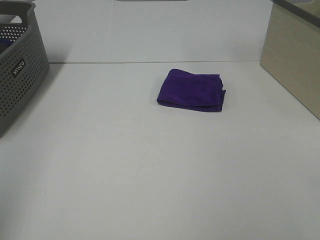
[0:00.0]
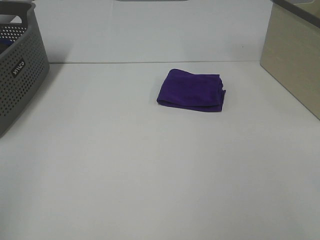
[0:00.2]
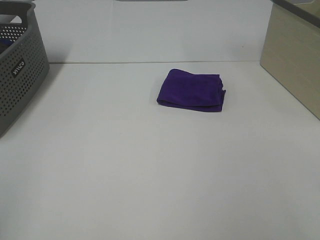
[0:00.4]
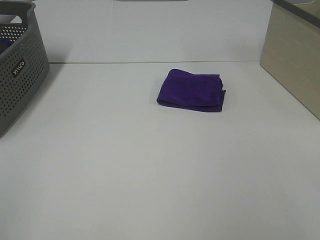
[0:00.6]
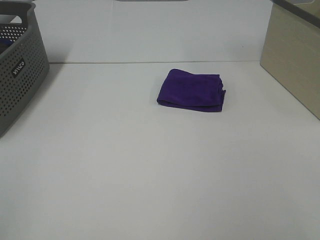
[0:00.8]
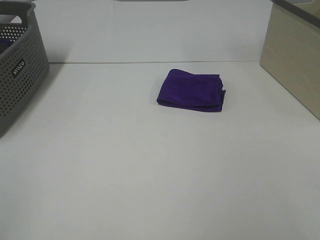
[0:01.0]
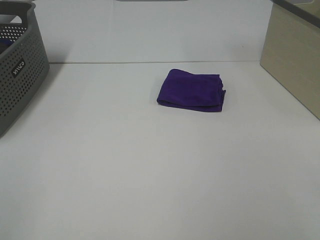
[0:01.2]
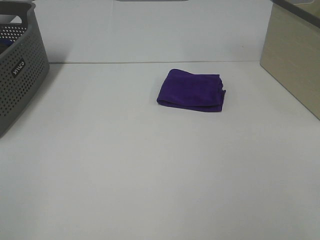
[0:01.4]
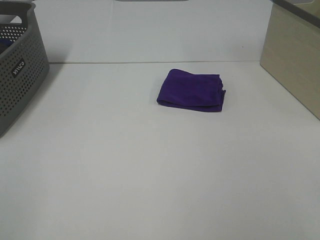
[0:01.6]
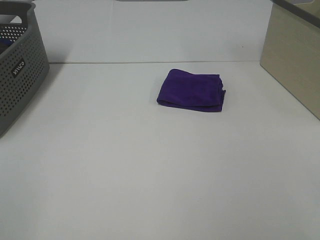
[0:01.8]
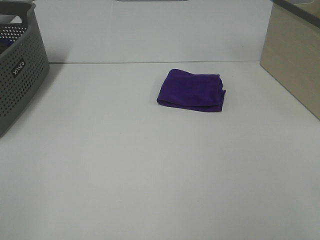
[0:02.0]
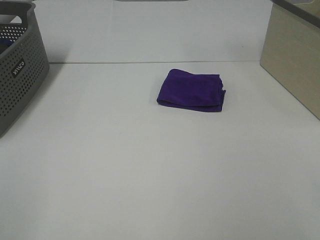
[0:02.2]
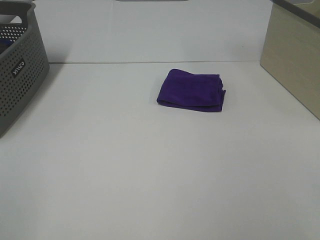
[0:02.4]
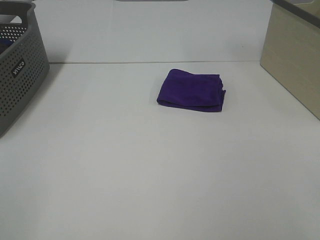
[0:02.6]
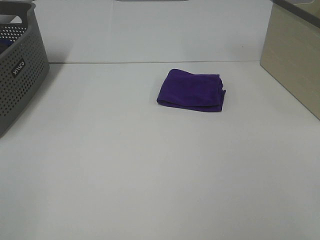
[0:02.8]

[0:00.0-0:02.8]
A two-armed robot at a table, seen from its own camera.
Task of the whole recording: Fold towels.
1.4 to 2.8 s: Neither gripper changes place.

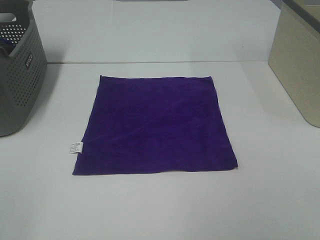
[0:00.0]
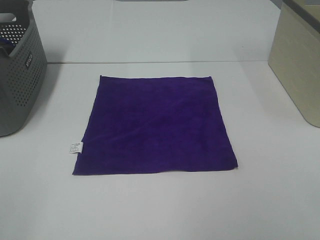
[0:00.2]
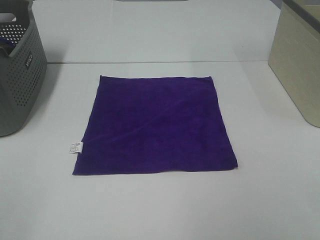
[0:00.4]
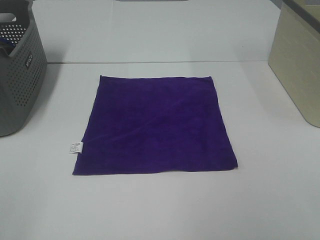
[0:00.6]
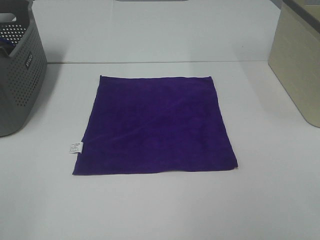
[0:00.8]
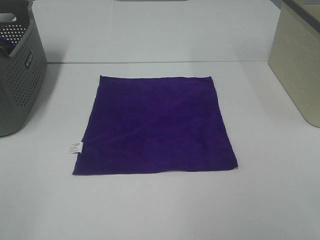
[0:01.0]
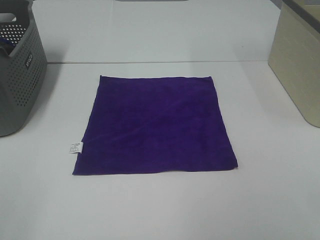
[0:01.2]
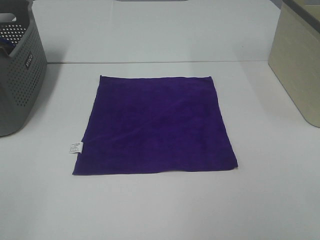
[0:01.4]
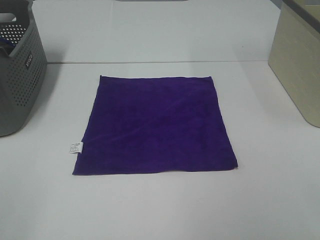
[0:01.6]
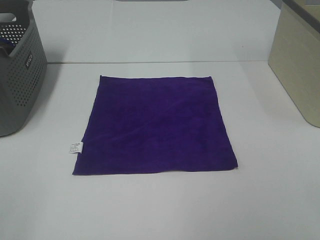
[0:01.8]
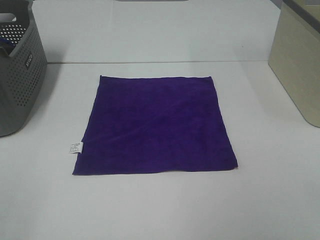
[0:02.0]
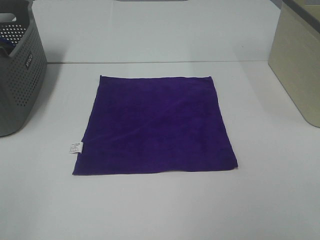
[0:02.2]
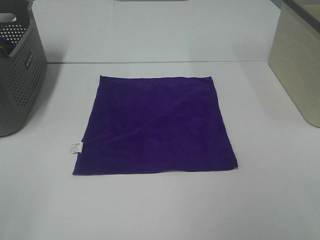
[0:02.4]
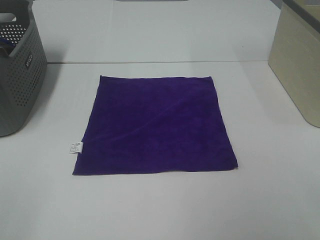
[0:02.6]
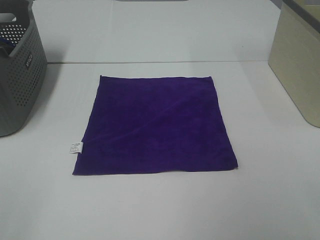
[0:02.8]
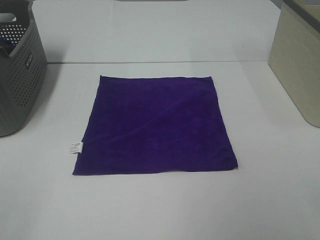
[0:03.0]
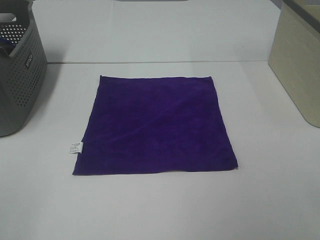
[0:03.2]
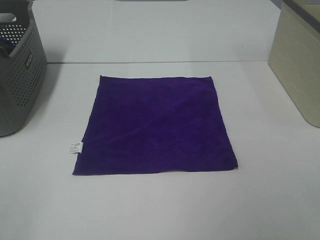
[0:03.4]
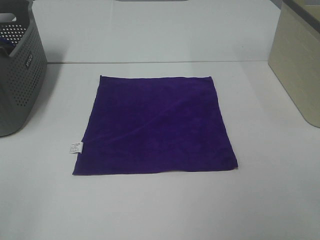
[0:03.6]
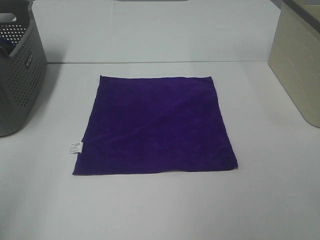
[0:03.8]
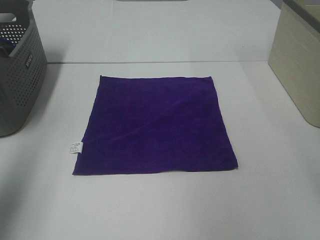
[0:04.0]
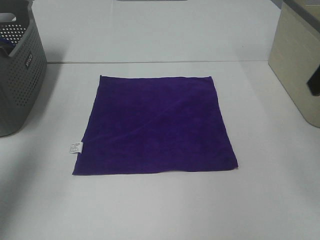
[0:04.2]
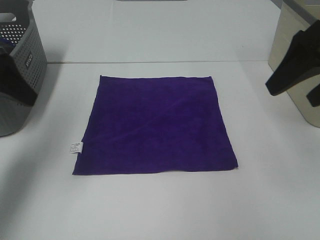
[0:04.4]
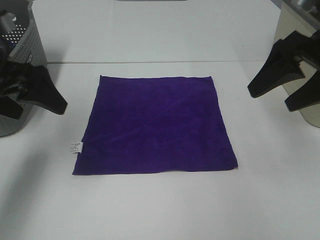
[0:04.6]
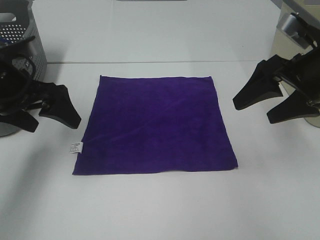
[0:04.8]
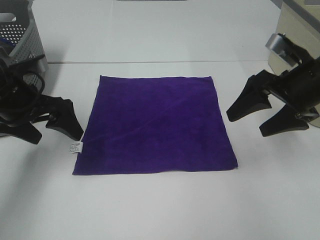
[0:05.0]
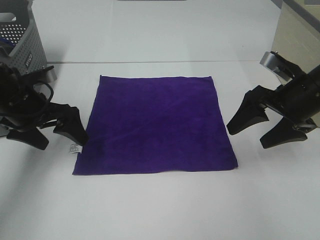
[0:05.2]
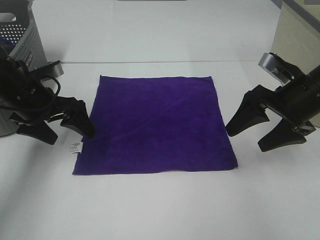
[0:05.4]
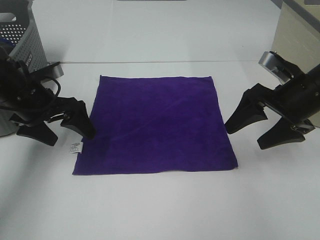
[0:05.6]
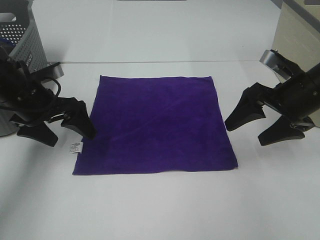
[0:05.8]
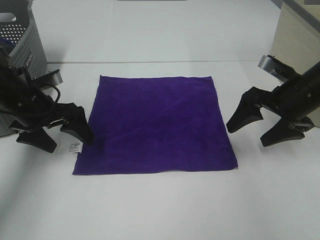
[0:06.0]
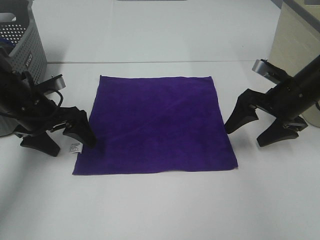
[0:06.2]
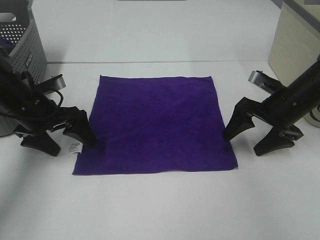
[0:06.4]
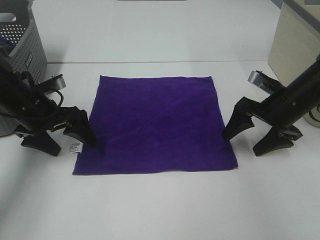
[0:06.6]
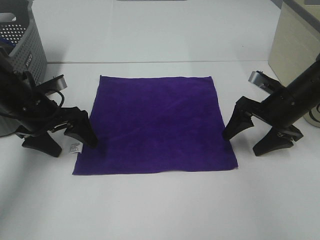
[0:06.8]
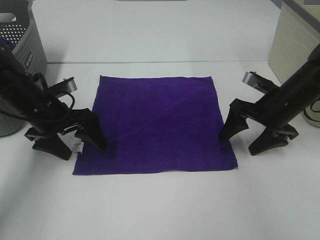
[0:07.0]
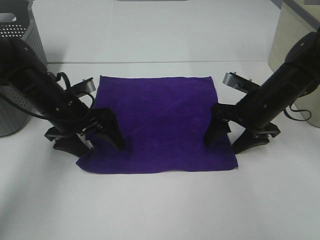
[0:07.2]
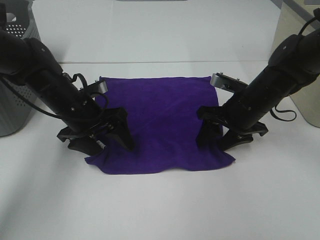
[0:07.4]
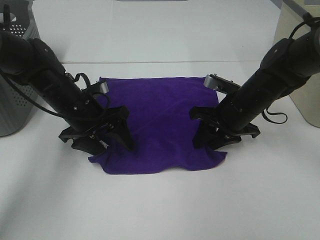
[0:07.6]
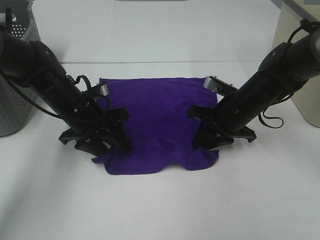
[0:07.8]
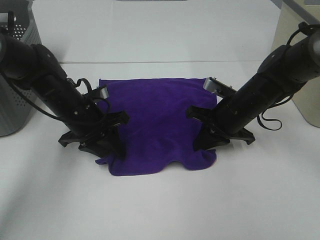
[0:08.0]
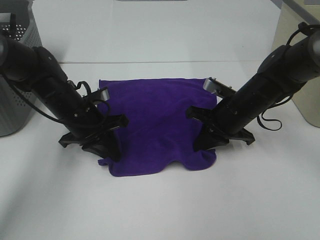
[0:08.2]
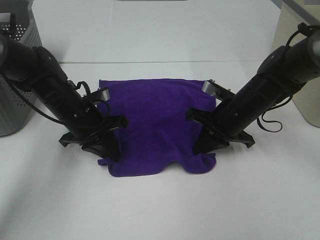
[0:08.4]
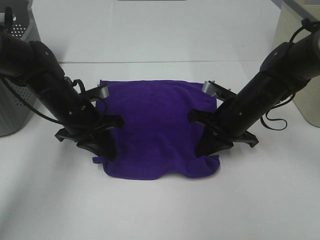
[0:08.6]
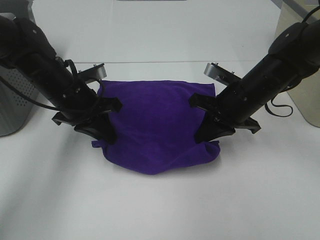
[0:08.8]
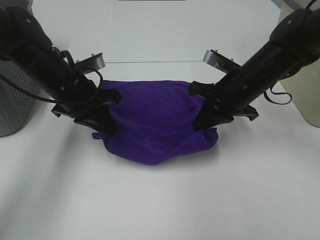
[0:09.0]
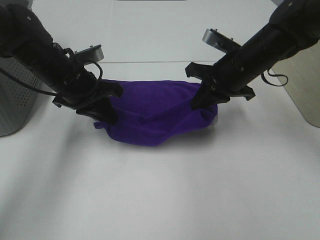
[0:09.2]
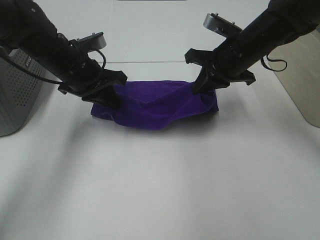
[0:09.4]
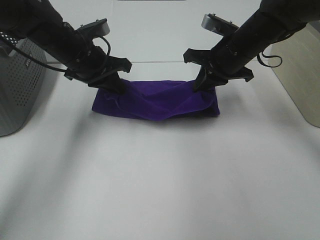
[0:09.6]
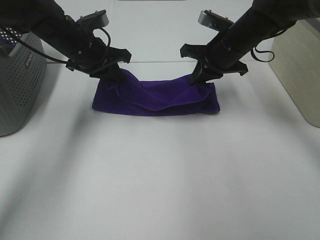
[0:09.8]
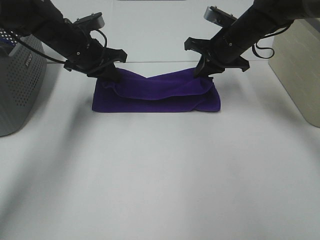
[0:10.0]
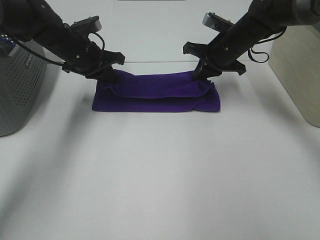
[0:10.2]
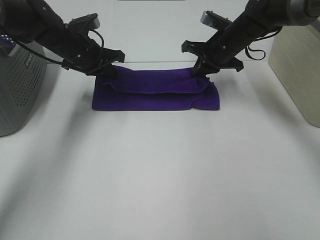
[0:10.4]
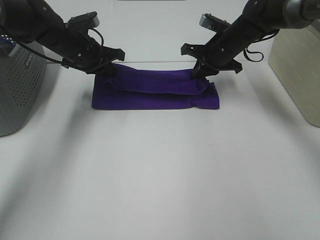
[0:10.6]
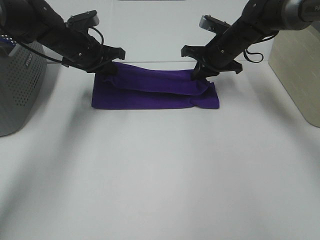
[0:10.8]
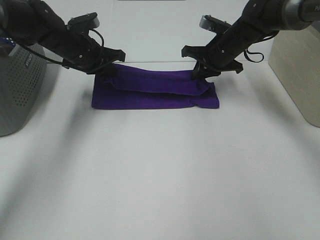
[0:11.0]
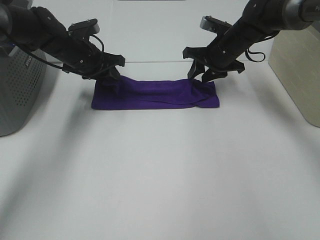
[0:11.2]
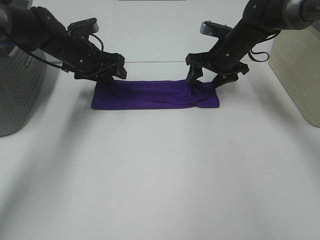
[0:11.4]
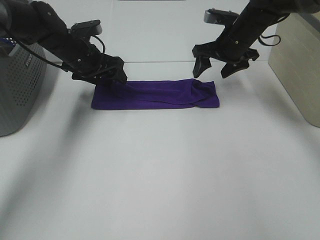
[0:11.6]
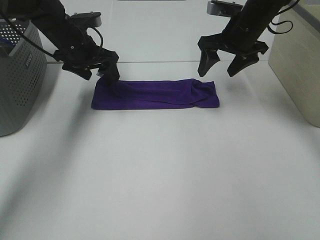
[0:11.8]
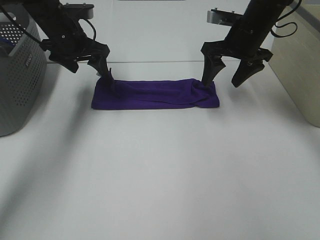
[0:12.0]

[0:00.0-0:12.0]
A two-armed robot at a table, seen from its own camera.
Task of the whole recording: Fold towels.
Step, 0.0 to 8.2 s: Left hand: grab the bottom left corner of purple towel.
Step, 0.0 to 8.2 s: Right hand: grab the bottom right corner of purple towel.
Step, 8.4 to 11.2 s: Left hand: fold the purple towel up.
Step, 8.4 to 11.2 s: Right hand: fold the purple towel up.
0.0 to 3.0 s: Both grippers stay about where they are.
3.0 to 4.4 s: Both grippers travel together forward, some 25 cm.
4.4 to 6.0 s: Both grippers move downward and forward, approximately 15 cm.
6.0 to 7.6 s: The left gripper heads to the right, covering roughly 10 cm; the right gripper shifts roughly 10 cm to the left and downward, and closes up.
7.6 to 9.0 s: Both grippers travel together upward, approximately 5 cm. The left gripper closes up, while the right gripper closes up.
9.0 to 10.4 s: Both grippers move forward, approximately 15 cm.
10.4 to 12.0 s: The right gripper shifts about 5 cm upward, and opens, while the left gripper opens up.

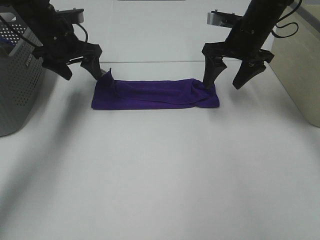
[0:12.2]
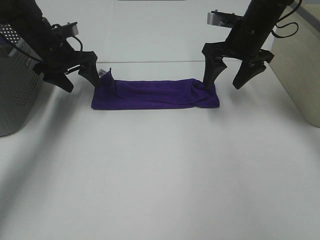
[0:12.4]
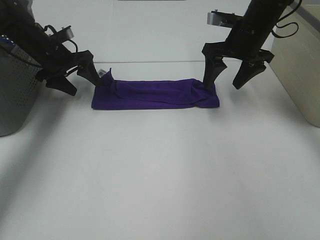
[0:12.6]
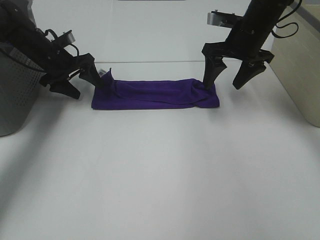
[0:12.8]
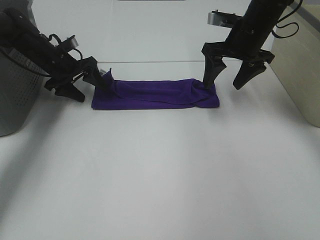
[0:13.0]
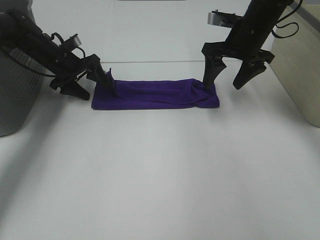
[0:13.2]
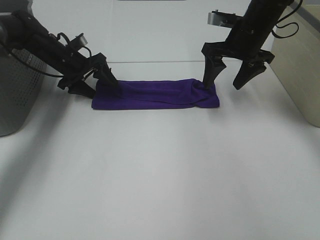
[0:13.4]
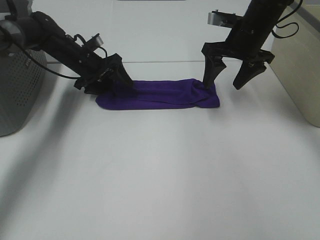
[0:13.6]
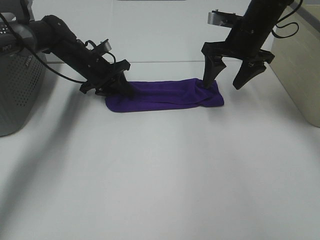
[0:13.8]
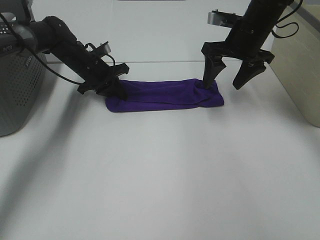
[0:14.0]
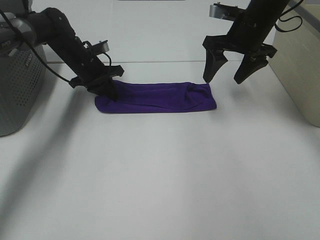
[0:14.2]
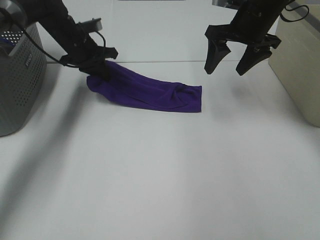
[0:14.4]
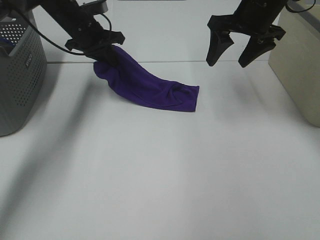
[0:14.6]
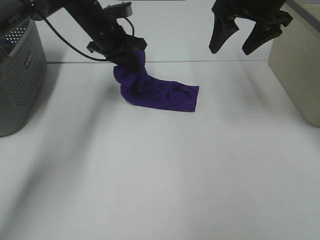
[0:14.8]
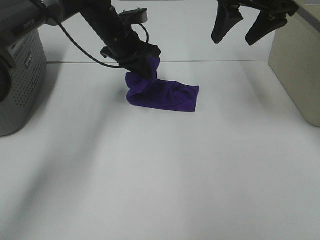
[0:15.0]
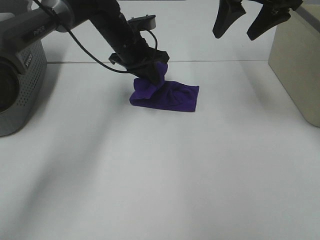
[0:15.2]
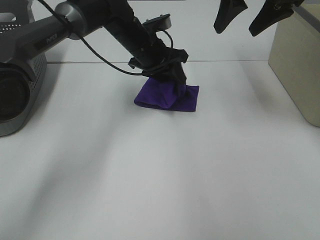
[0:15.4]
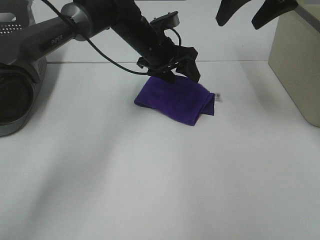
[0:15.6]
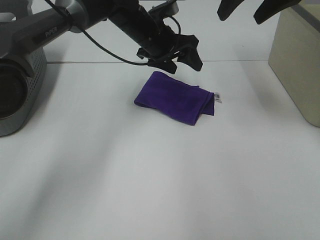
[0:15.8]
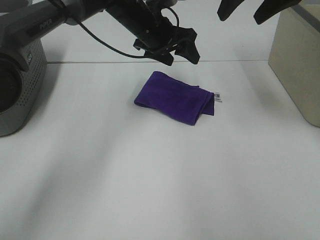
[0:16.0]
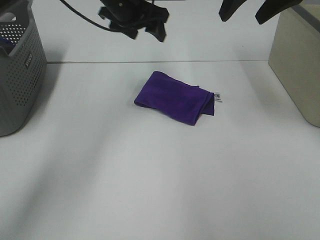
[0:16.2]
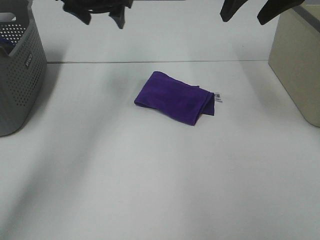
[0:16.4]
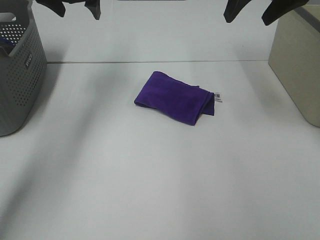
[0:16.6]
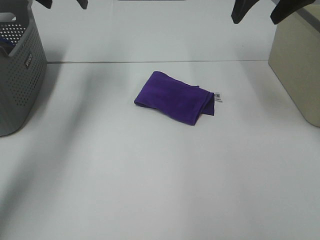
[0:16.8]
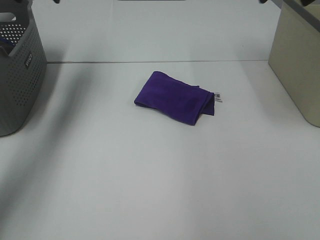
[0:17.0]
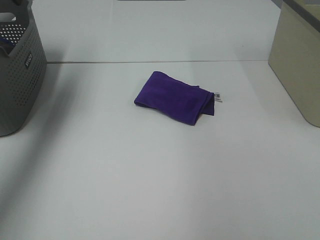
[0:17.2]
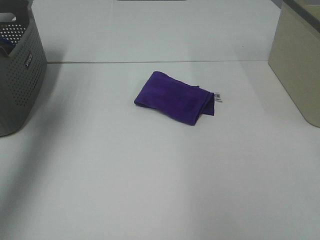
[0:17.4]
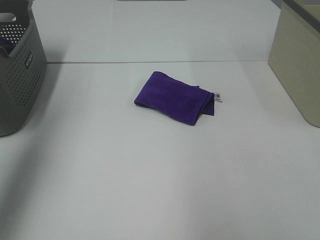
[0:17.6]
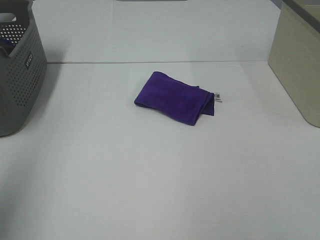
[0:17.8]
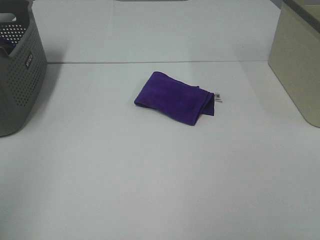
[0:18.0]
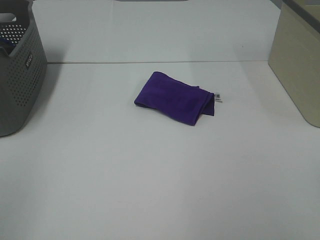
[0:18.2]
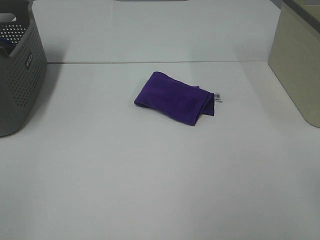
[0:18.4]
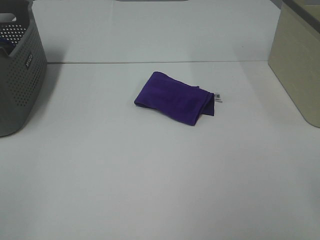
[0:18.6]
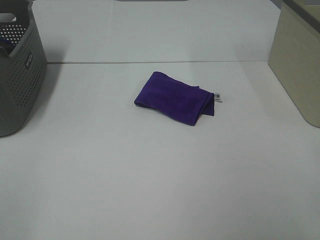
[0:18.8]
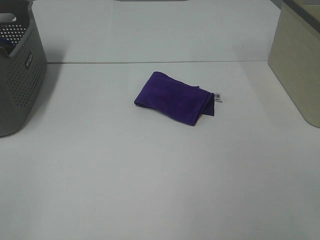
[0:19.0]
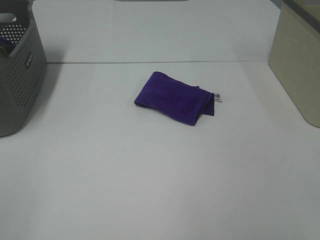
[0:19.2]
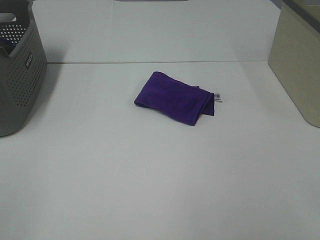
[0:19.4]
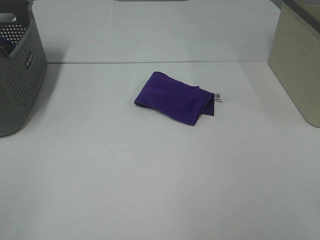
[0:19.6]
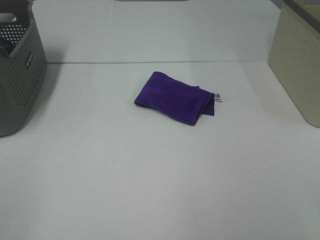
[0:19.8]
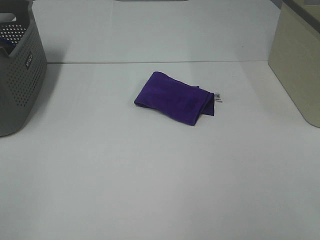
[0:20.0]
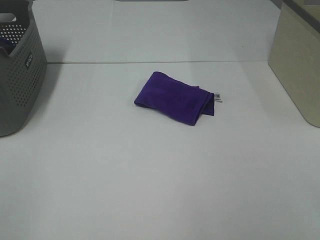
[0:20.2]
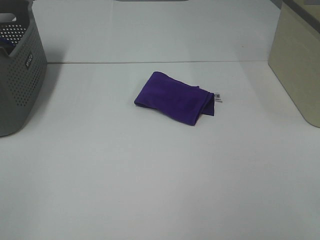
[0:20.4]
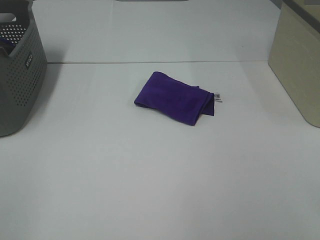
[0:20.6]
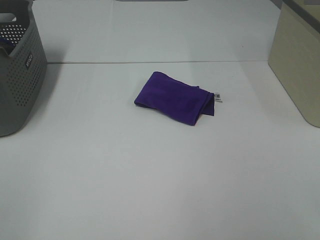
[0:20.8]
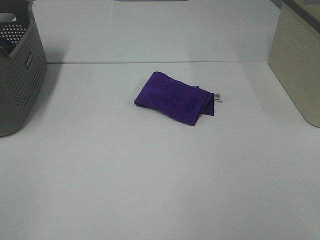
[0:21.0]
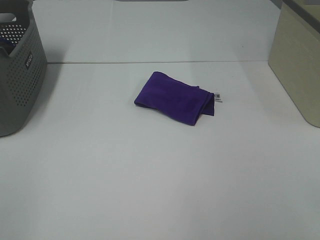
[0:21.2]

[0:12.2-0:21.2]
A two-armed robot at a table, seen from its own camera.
Task of the whole recording: Fold towels.
Step, 12.2 to 15.4 s: Left hand: fold the purple towel from left to right.
12.2 to 13.8 s: The left gripper moves downward, approximately 10 cm, and closes its fingers.
13.8 to 15.2 s: The left gripper travels to the right and upward by roughly 15 cm, while the right gripper heads upward, covering approximately 10 cm.
15.2 to 16.6 s: The left gripper moves upward and to the left, about 20 cm, and opens up.
16.6 to 18.2 s: The two grippers go some 50 cm backward.
19.8 to 21.2 s: The two grippers keep their place.
